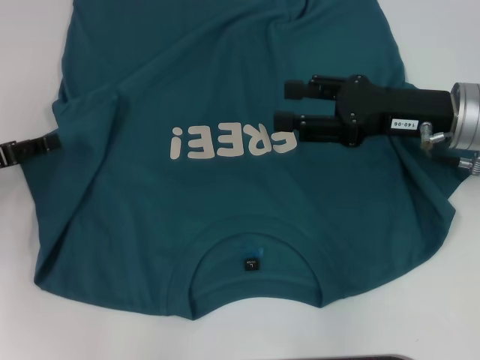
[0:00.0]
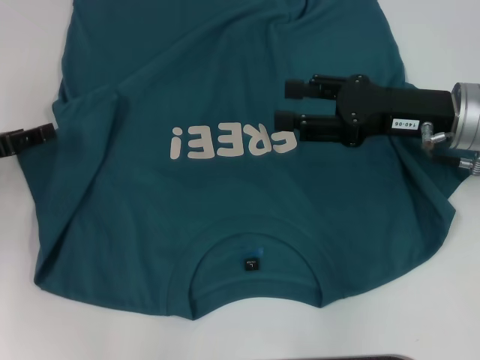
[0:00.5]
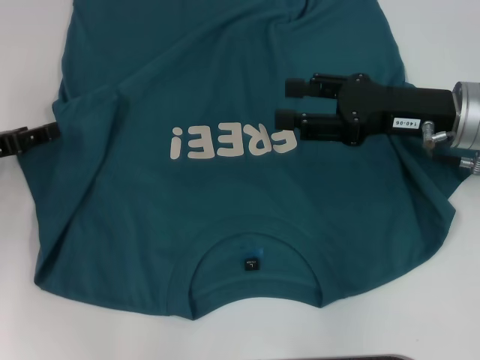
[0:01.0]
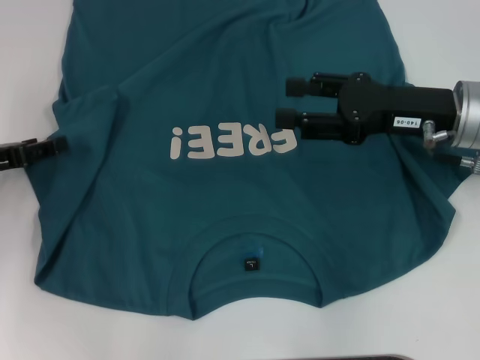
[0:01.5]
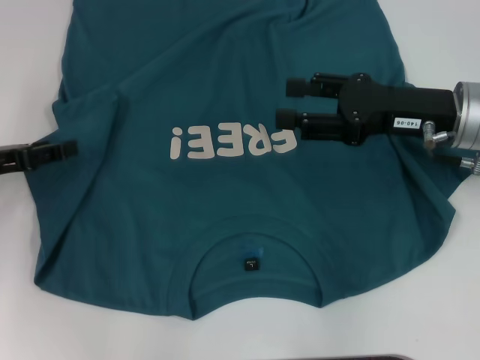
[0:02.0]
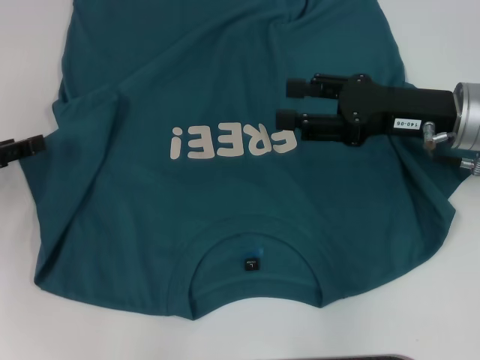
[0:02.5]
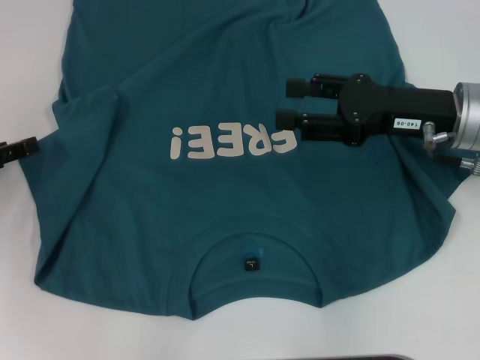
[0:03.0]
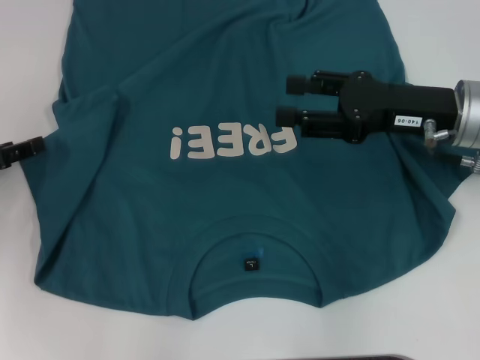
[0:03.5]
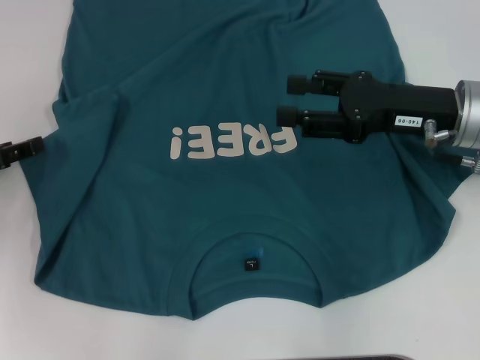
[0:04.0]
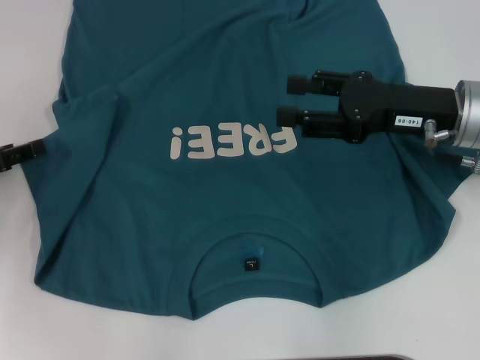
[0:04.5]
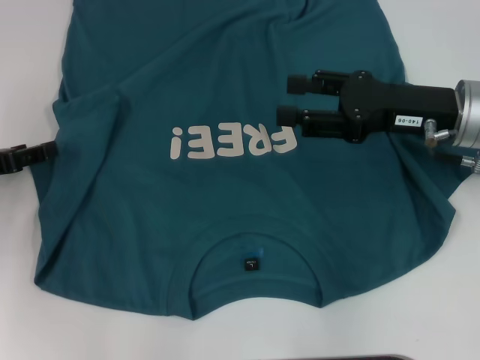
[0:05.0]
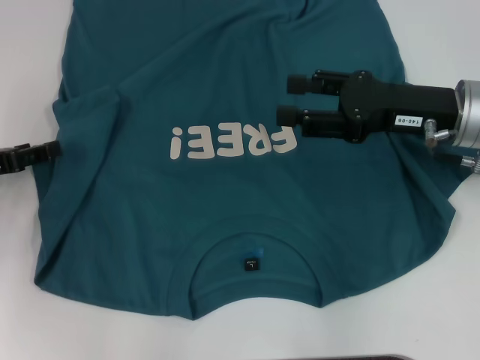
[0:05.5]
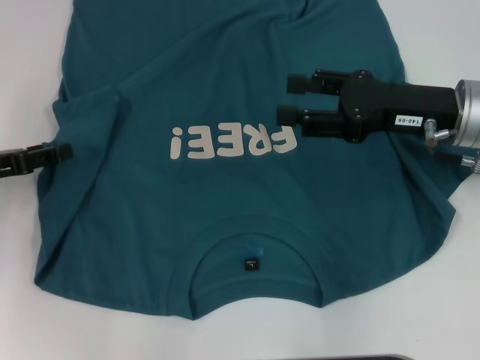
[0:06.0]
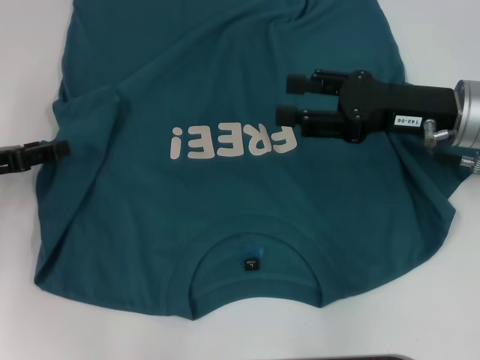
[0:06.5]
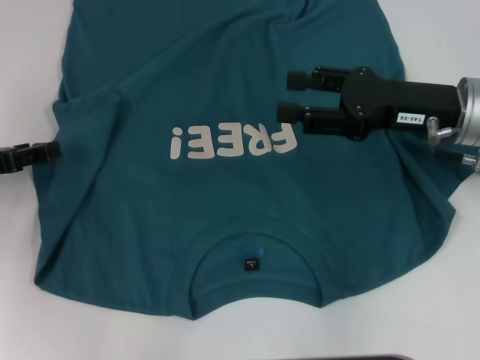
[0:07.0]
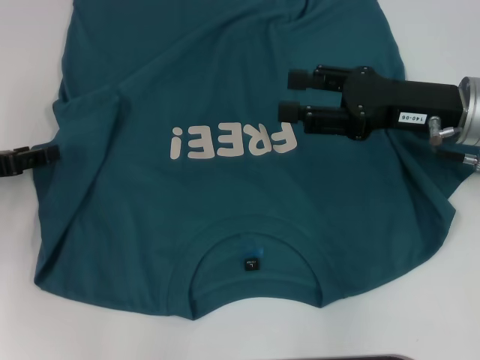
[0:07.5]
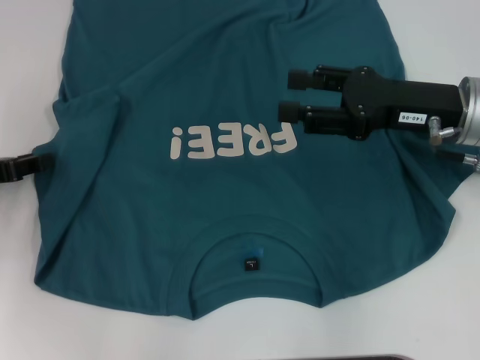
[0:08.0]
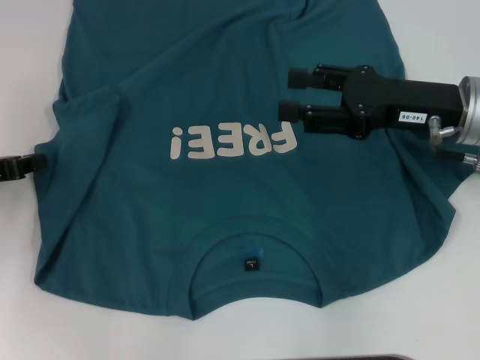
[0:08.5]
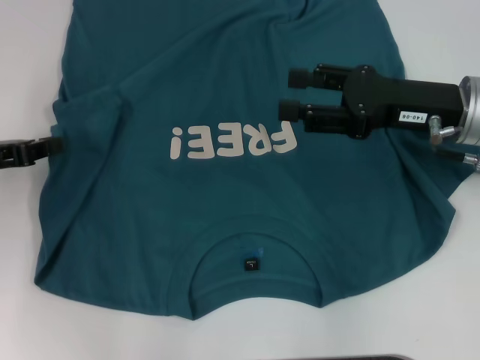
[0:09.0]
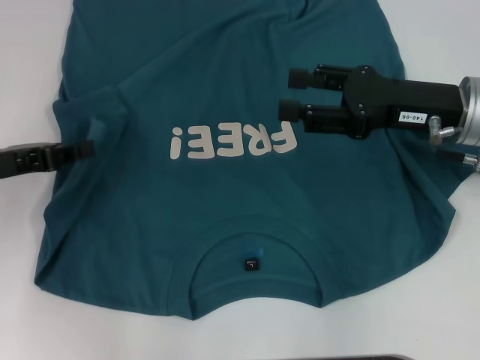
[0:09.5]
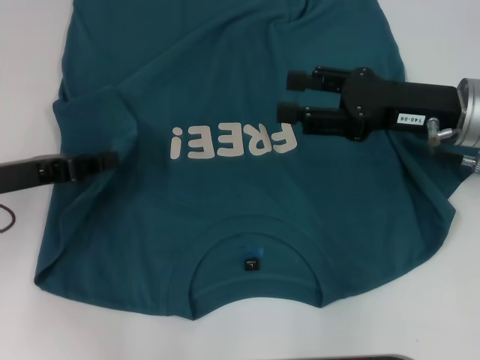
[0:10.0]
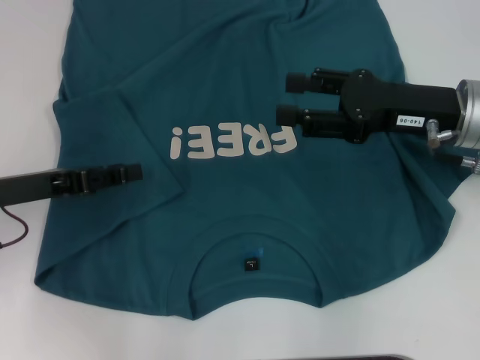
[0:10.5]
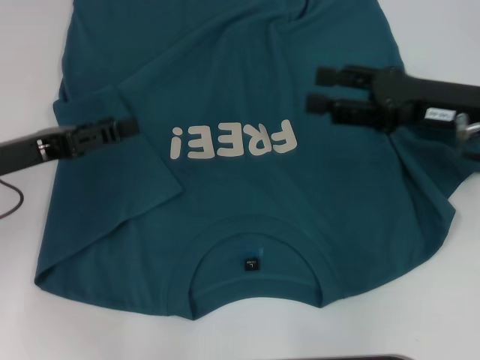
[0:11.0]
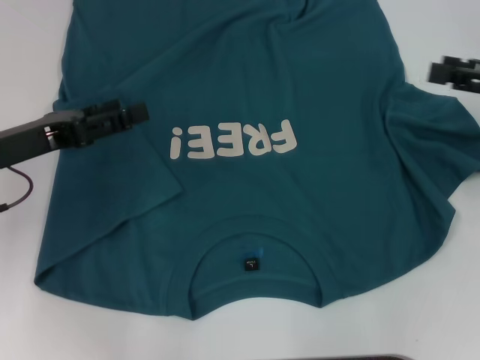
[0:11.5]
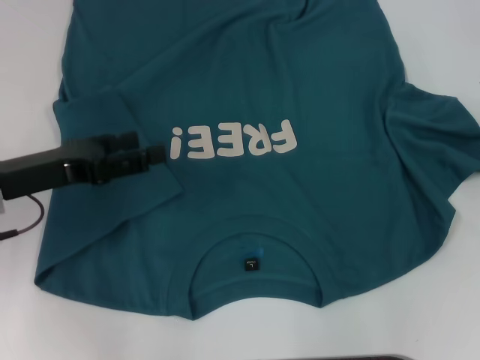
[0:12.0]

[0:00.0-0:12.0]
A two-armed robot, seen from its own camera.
Step, 0:00.0 to 0:10.0: Fold the bottom left sleeve with your left hand.
0:00.0 to 0:06.0: The grippers move only a little.
0:06.0 to 0:08.0: Neither gripper changes place.
0:08.0 to 0:10.0: The left gripper travels to the right by approximately 5 cm, and closes up.
0:10.0 to 0:12.0: The left gripper opens. Meanwhile the right gripper goes approximately 15 cm to the right.

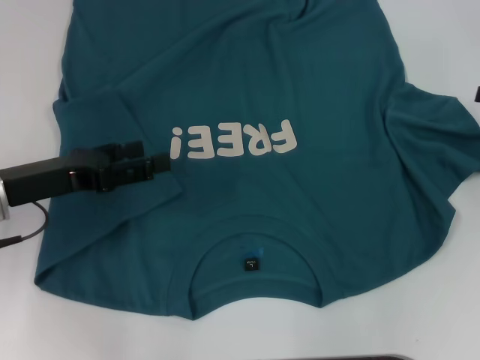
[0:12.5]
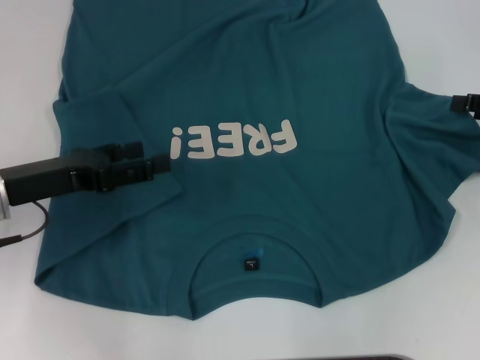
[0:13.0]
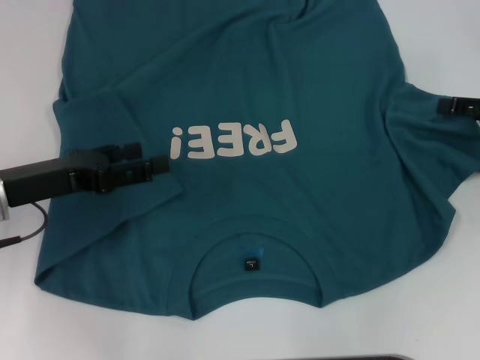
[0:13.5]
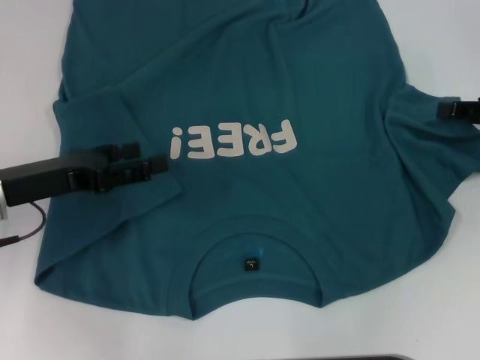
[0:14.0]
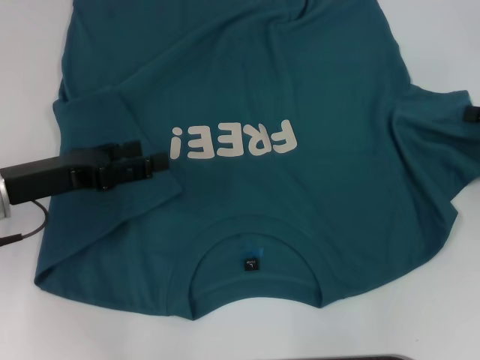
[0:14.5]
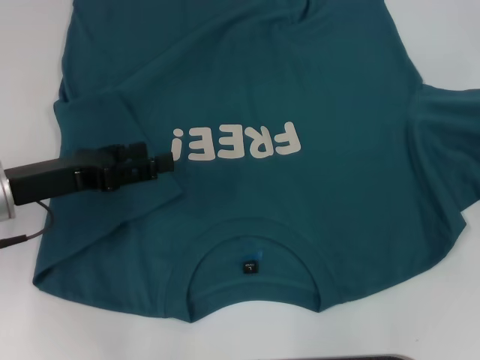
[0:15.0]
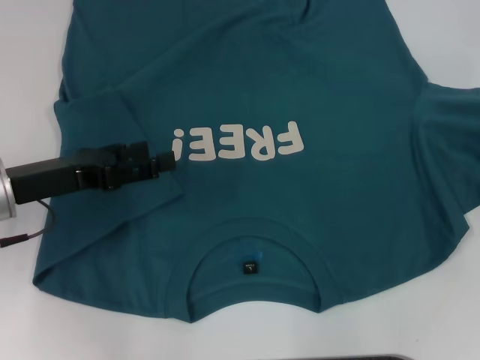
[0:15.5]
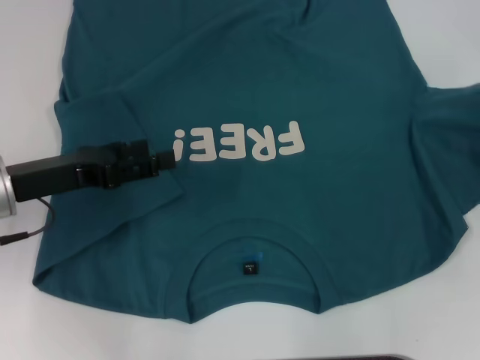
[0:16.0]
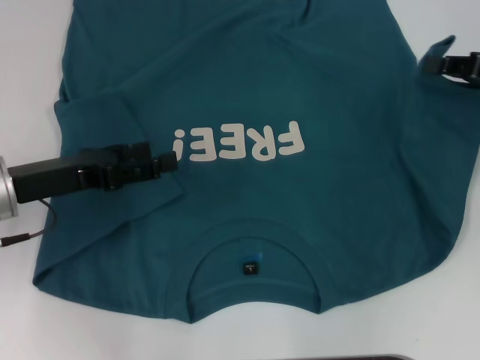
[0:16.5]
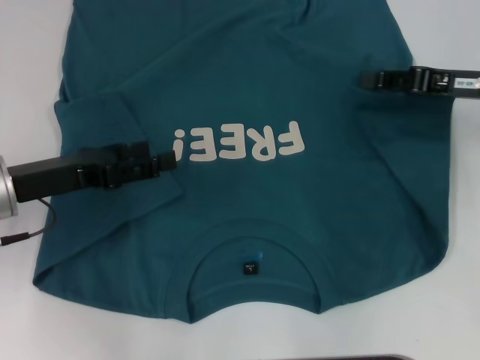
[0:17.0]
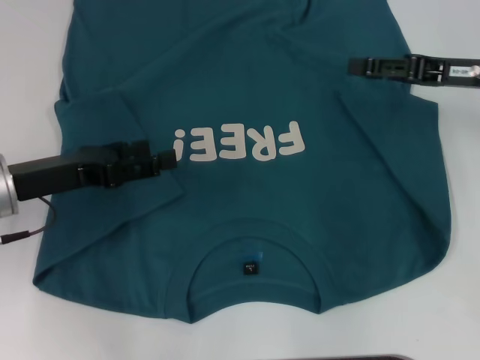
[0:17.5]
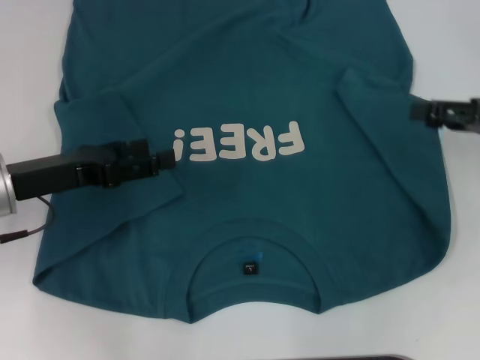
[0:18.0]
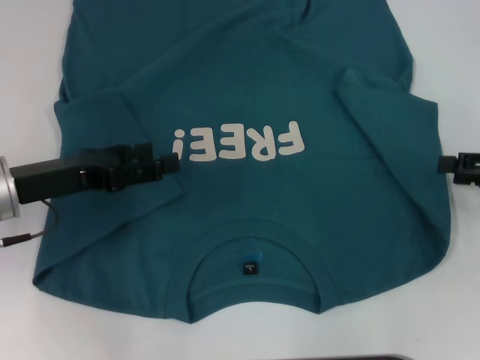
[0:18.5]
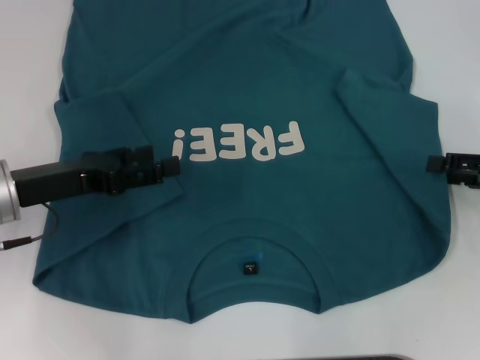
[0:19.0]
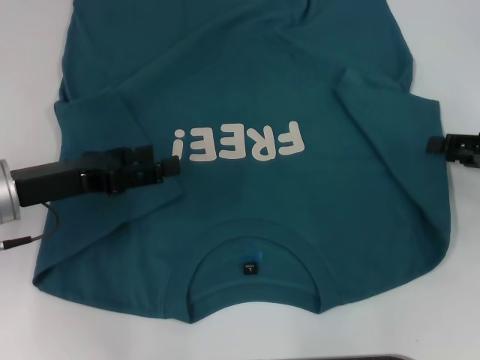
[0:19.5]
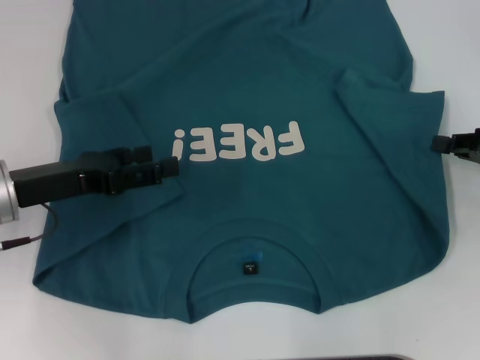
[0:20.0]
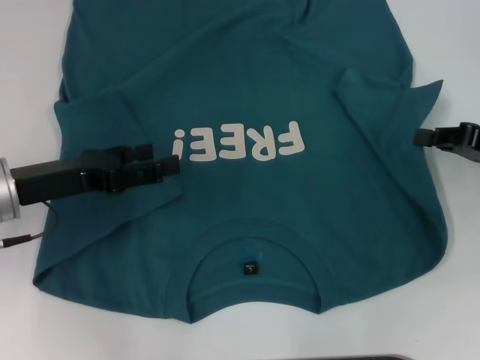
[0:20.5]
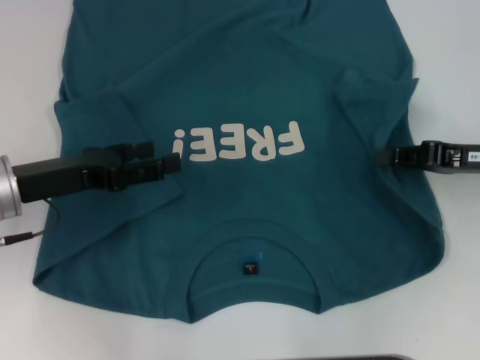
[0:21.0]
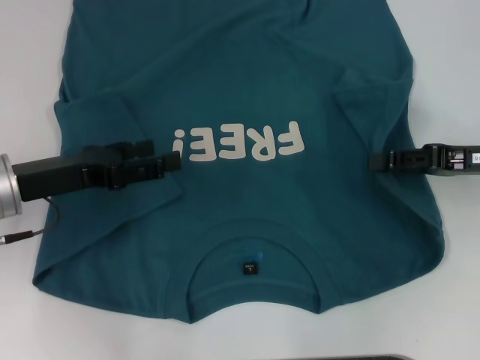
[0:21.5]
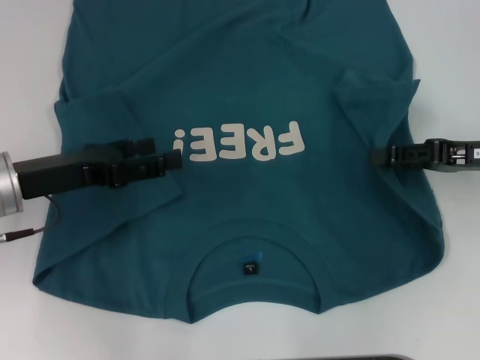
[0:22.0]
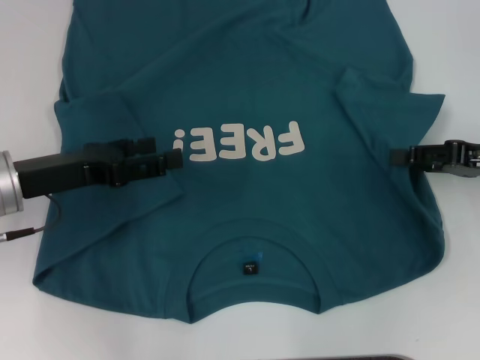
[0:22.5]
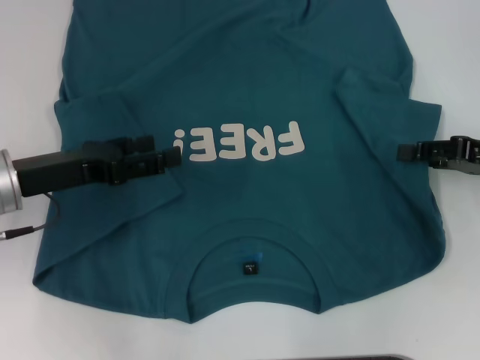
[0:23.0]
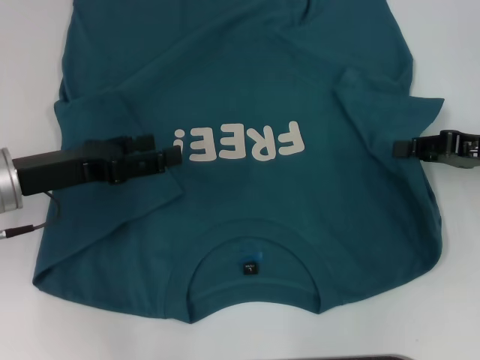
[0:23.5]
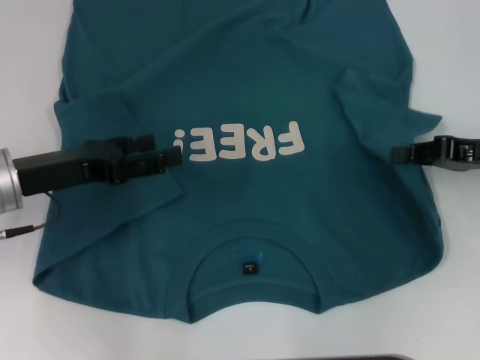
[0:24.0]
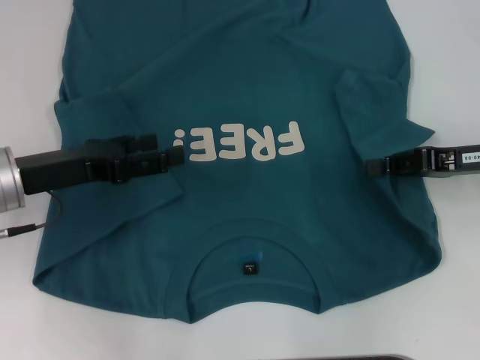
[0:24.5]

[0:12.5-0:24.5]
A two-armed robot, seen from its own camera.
0:12.5 to 0:14.5: The right gripper closes.
0:14.5 to 0:16.5: The right gripper moves some 5 cm.
0:16.5 to 0:18.5: The right gripper heads backward, covering some 5 cm, and opens up.
0:18.5 to 0:20.5: The right gripper closes.
0:20.5 to 0:22.5: The right gripper opens up.
0:22.5 to 0:24.5: The right gripper closes up.

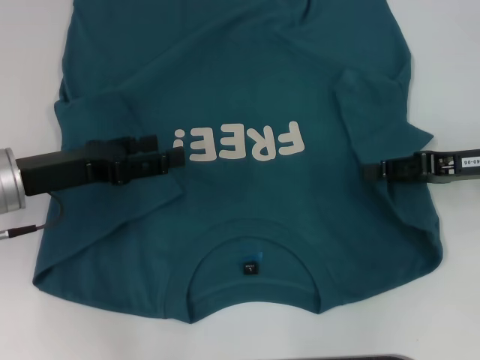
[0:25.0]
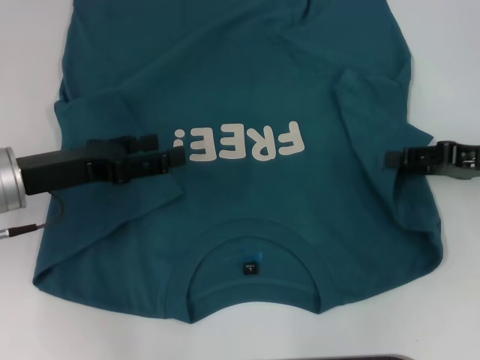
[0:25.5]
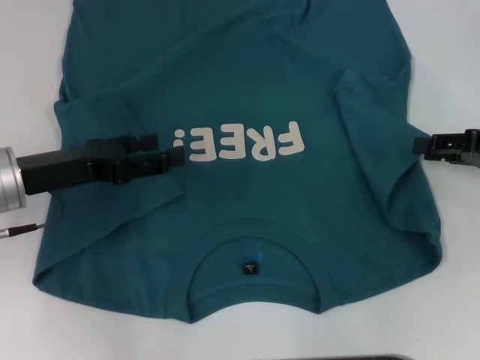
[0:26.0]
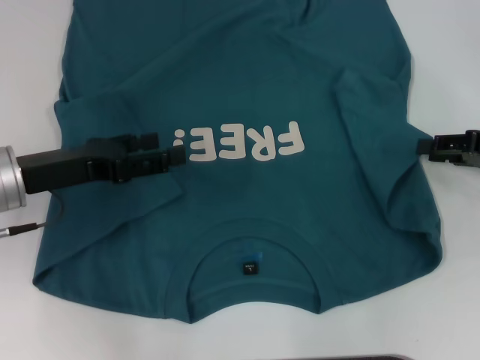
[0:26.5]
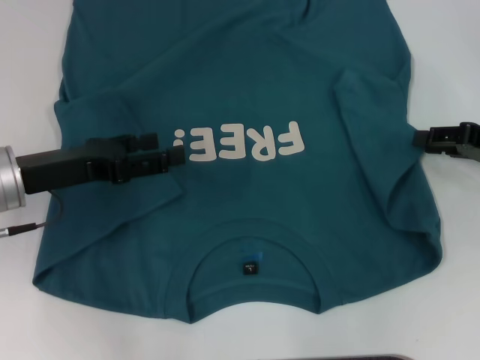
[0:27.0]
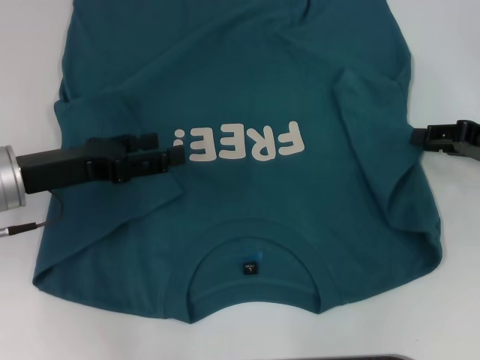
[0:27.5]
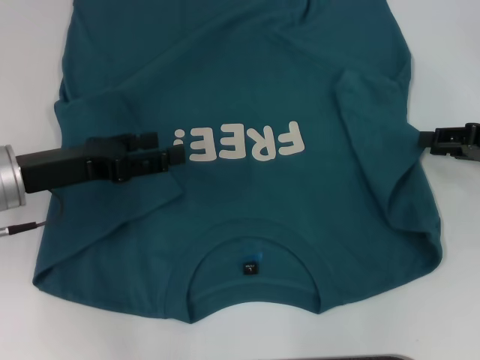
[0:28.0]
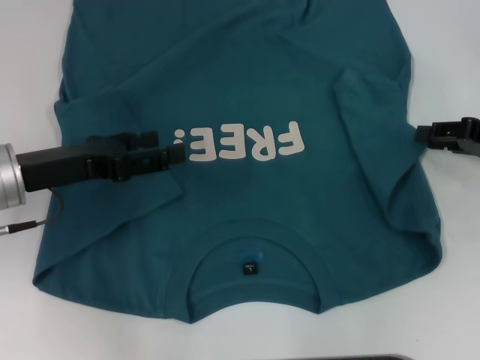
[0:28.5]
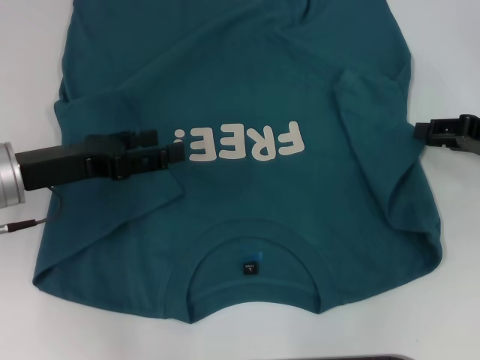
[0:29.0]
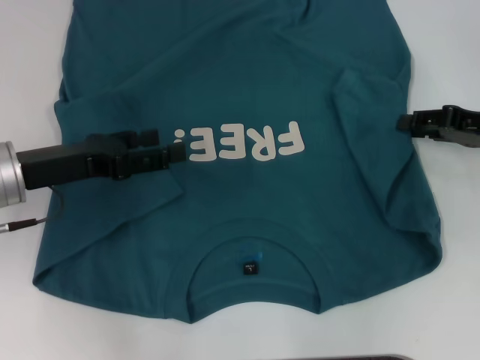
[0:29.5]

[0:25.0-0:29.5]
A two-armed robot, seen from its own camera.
0:25.0 to 0:29.5: The grippers stay close to where they were, moving slightly.
